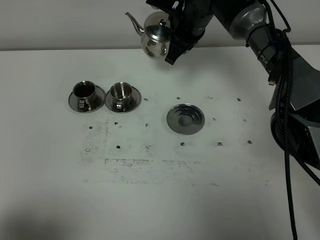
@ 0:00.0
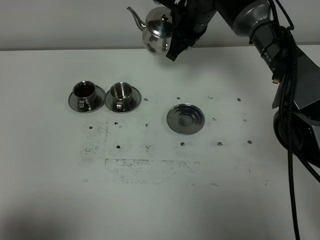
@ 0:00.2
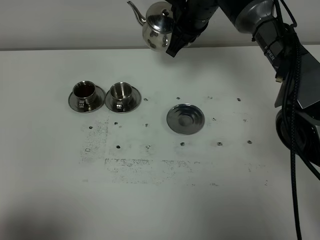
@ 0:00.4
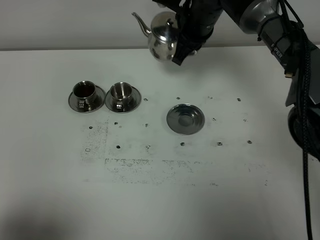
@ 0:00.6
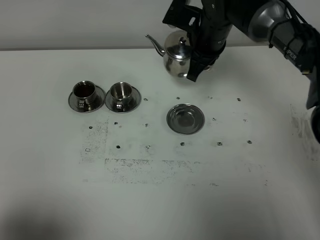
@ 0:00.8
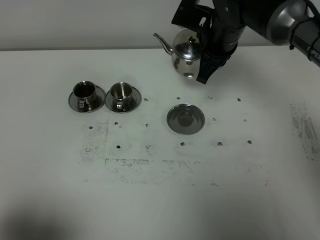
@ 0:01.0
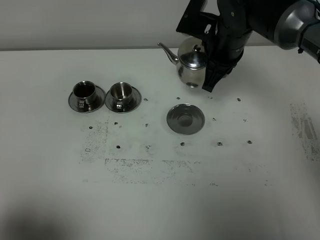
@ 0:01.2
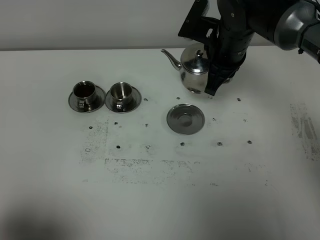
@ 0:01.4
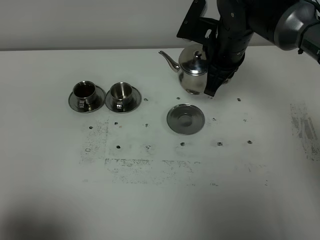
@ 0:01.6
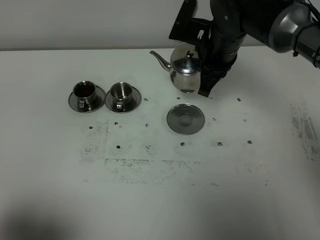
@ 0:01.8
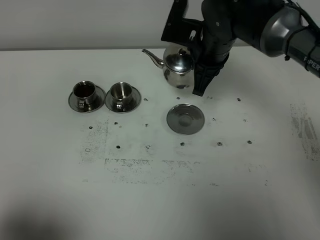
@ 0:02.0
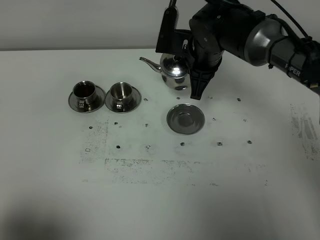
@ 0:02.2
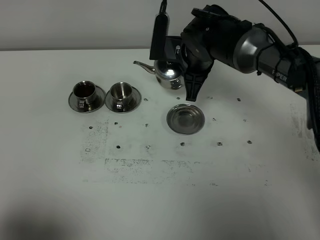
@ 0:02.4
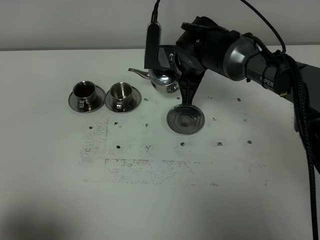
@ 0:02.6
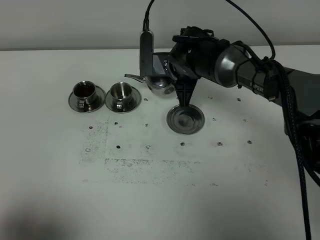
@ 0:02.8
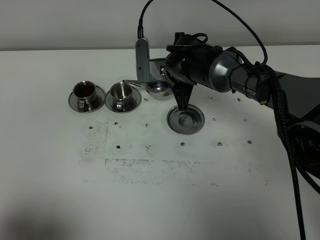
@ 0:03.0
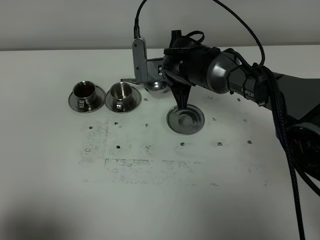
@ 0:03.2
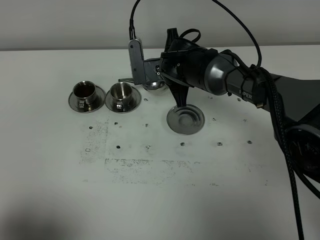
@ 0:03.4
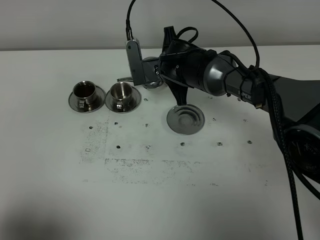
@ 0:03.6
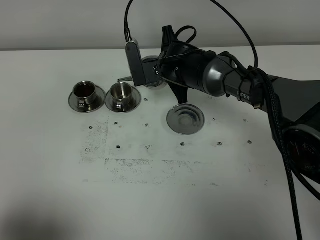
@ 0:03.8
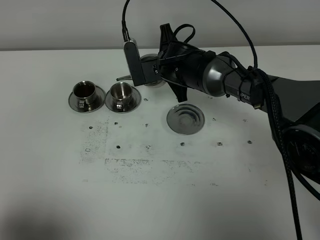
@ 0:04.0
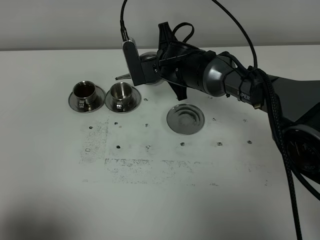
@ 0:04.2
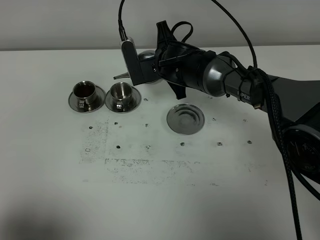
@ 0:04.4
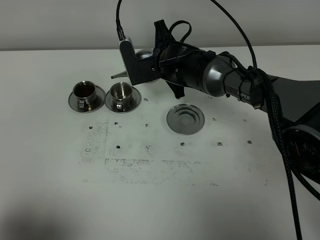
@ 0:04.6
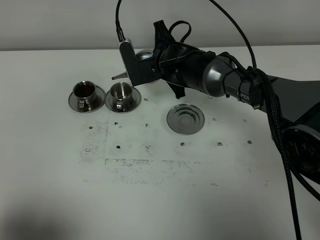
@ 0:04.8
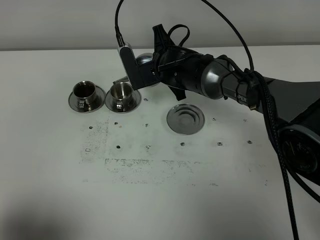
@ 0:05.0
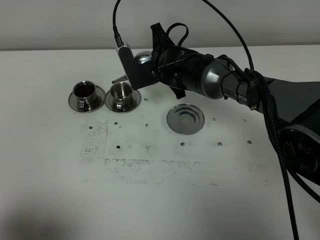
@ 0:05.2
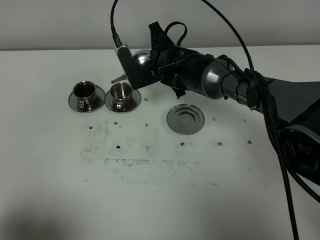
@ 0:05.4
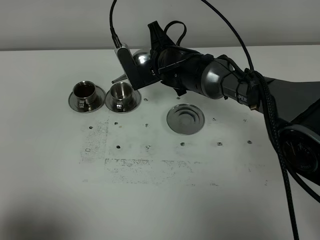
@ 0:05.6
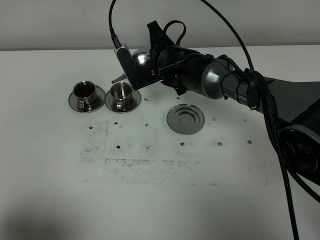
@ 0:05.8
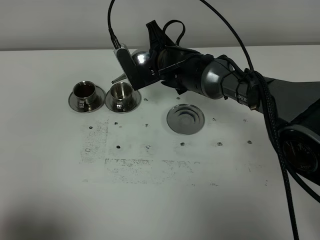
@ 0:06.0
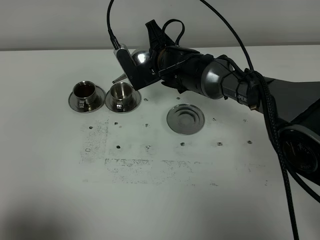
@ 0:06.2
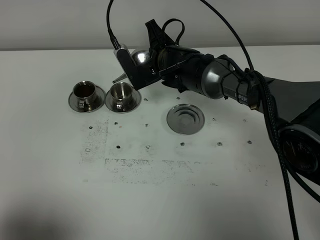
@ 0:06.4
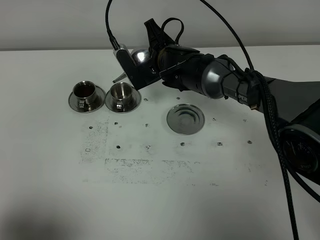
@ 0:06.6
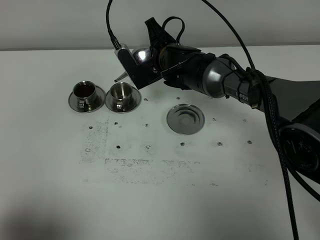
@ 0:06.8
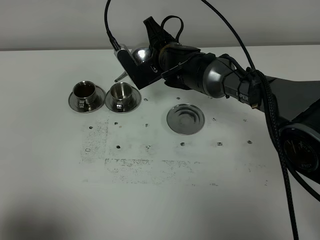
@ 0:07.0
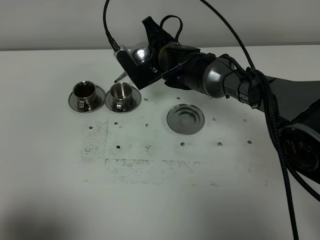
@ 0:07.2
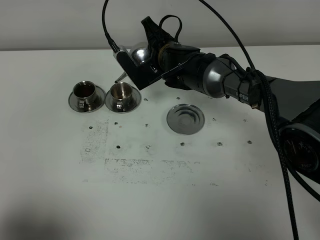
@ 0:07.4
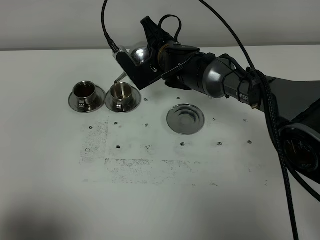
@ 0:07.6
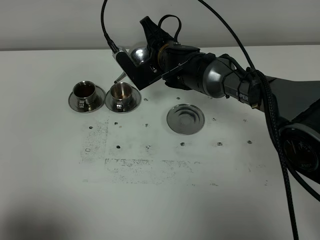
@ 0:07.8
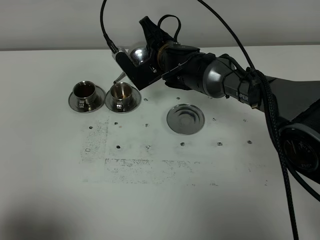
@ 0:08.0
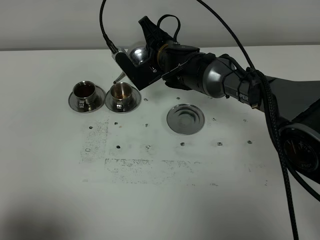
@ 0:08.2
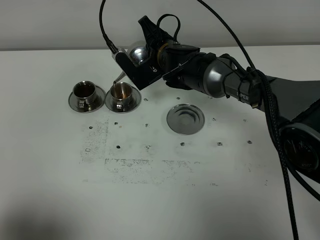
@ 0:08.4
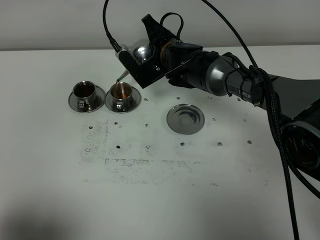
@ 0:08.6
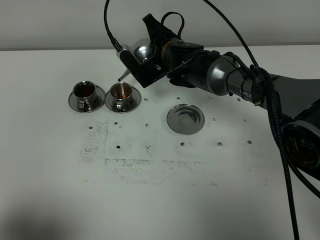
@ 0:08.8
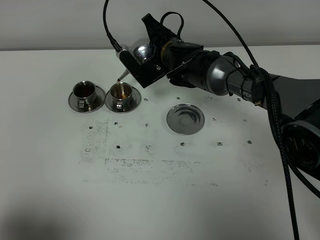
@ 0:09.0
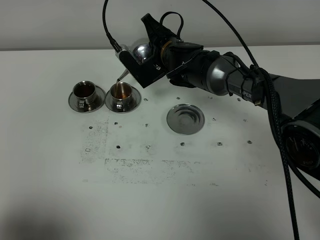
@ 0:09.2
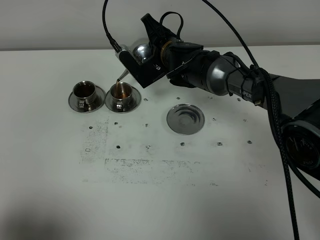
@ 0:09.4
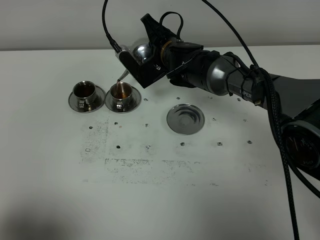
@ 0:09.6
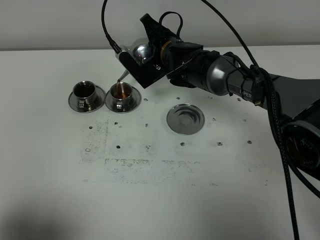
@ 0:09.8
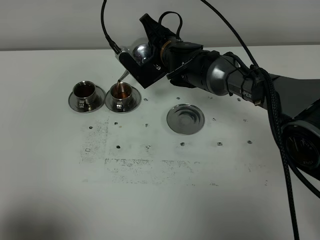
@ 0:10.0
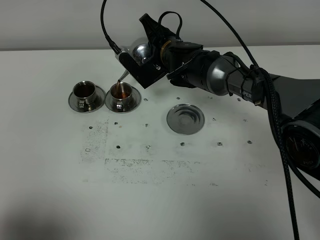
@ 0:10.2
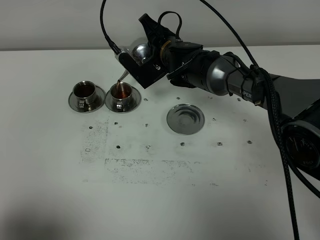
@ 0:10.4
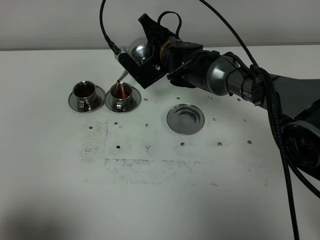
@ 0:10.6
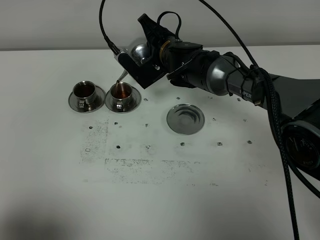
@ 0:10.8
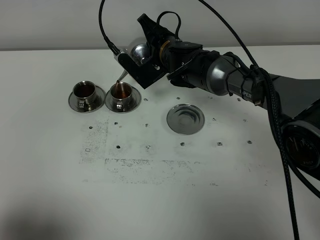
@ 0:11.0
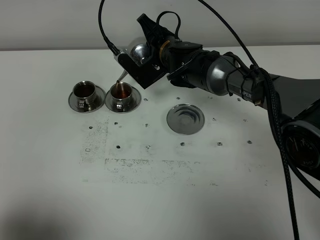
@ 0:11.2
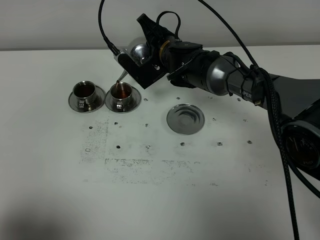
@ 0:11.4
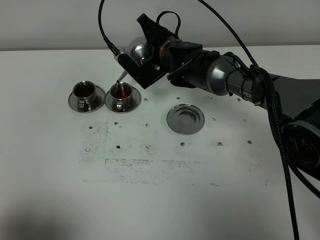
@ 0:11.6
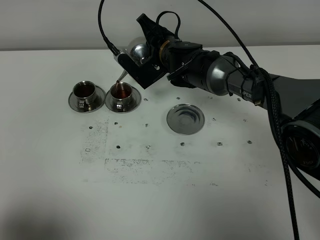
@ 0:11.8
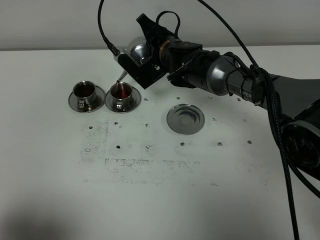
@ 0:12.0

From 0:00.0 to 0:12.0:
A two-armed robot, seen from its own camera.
Task of the whole recording: grasp the stainless steel teapot and pour the tea into the two stainless steel teacups one by one, put the stainless steel teapot back in its original place.
From 0:00.0 to 0:01.6: The right gripper heads backward, covering approximately 10 cm.
From 0:01.6 to 0:03.0: The right gripper heads downward and to the left, covering roughly 10 cm.
From 0:03.0 to 0:04.4: The grippers move only a little.
From 0:04.4 to 0:06.0: The grippers make only small movements.
From 0:06.0 to 0:07.6: The grippers stay close to where they were, moving slightly.
From 0:07.6 to 0:09.0: Both grippers stay about where they are.
From 0:09.0 to 0:10.4: Both grippers stay about where they are.
From 0:10.4 to 0:12.0: Neither gripper changes place.

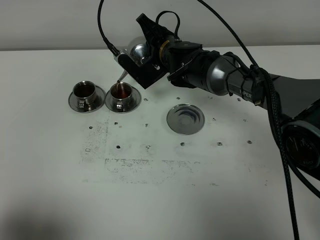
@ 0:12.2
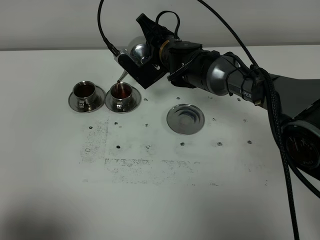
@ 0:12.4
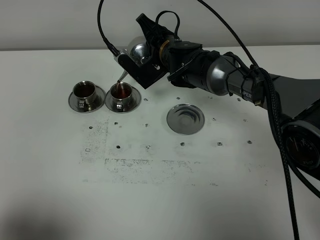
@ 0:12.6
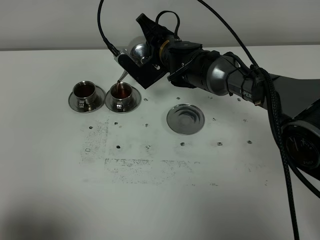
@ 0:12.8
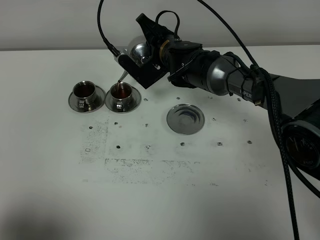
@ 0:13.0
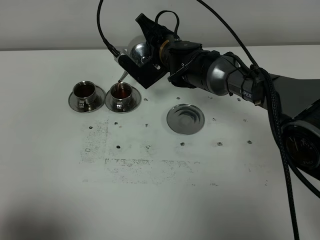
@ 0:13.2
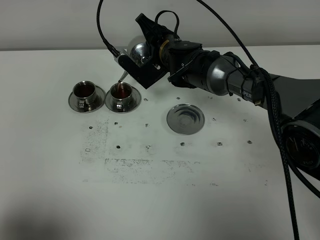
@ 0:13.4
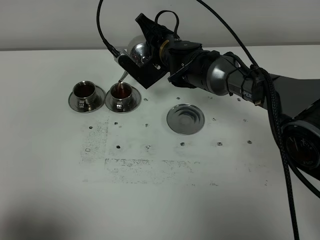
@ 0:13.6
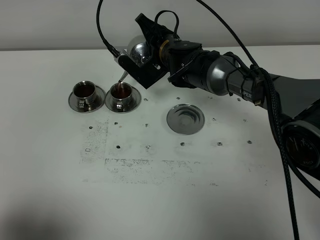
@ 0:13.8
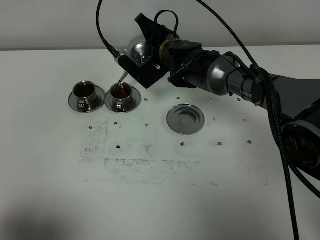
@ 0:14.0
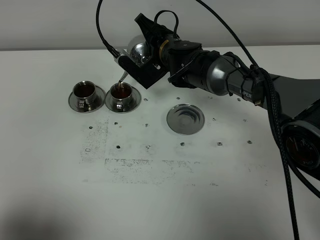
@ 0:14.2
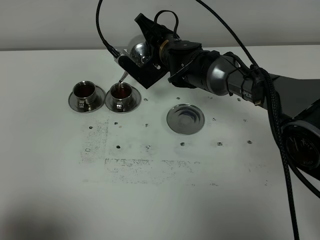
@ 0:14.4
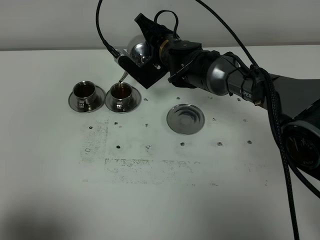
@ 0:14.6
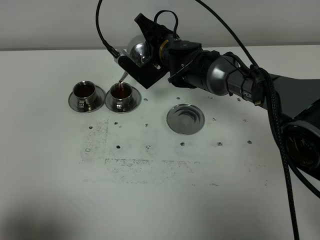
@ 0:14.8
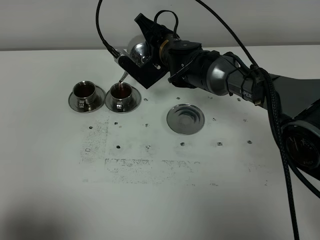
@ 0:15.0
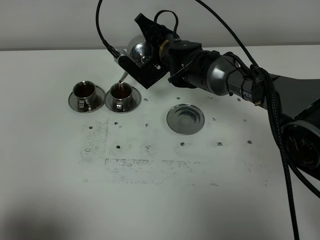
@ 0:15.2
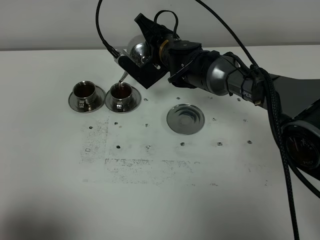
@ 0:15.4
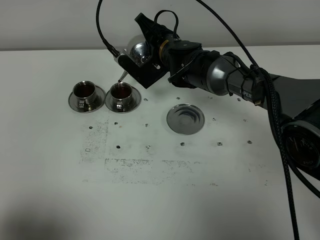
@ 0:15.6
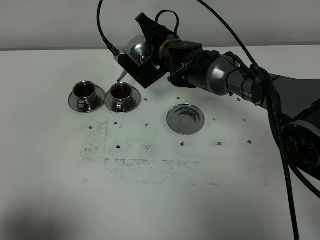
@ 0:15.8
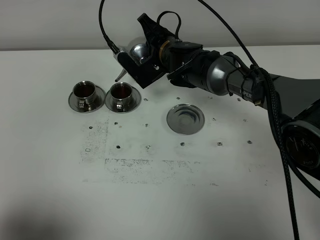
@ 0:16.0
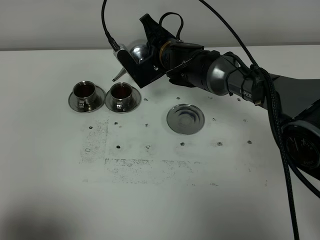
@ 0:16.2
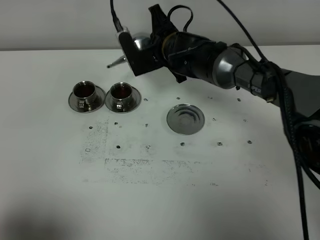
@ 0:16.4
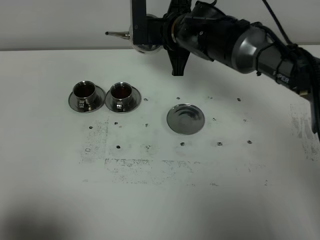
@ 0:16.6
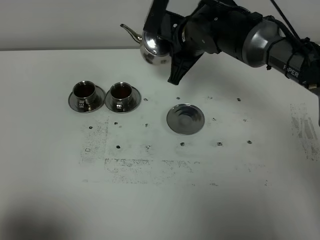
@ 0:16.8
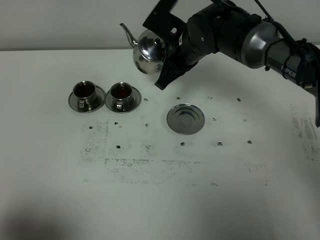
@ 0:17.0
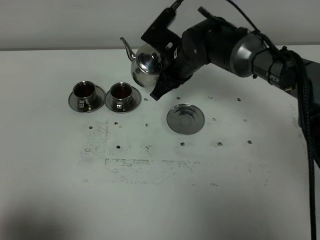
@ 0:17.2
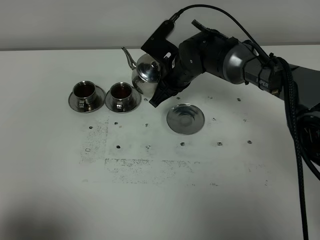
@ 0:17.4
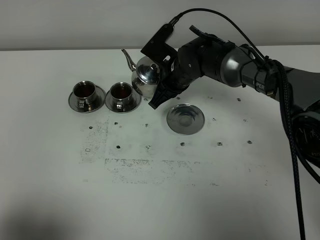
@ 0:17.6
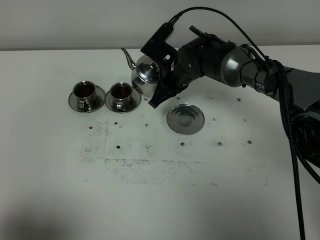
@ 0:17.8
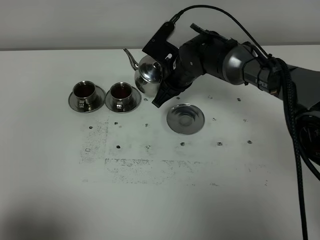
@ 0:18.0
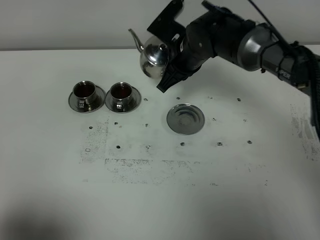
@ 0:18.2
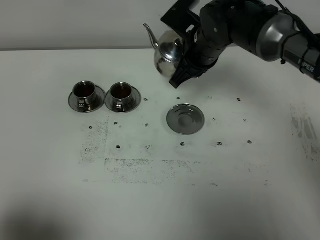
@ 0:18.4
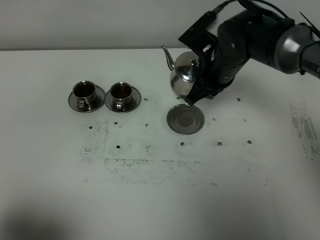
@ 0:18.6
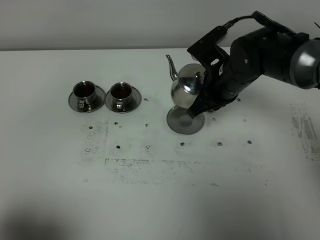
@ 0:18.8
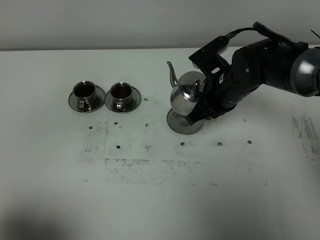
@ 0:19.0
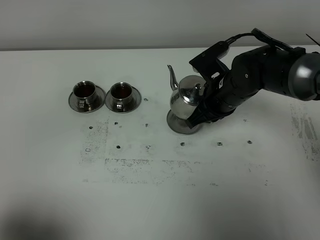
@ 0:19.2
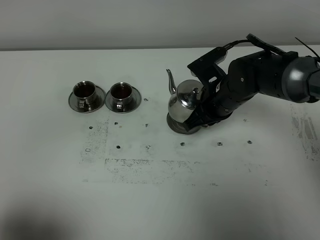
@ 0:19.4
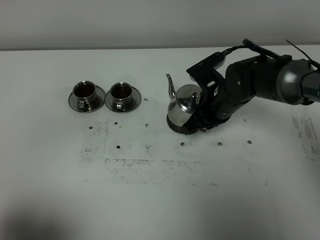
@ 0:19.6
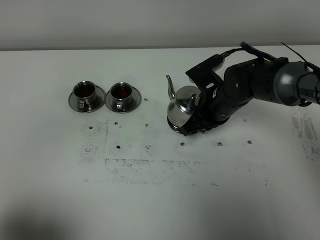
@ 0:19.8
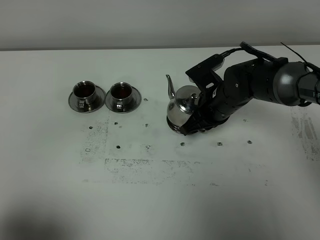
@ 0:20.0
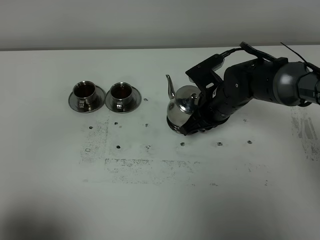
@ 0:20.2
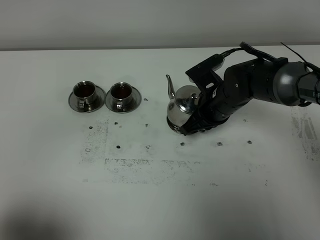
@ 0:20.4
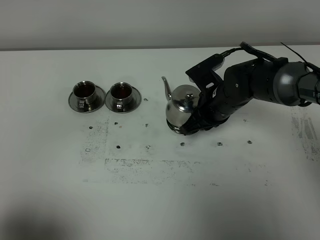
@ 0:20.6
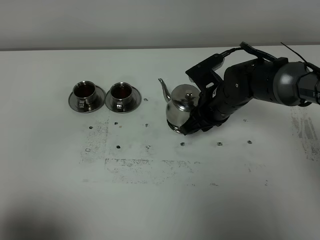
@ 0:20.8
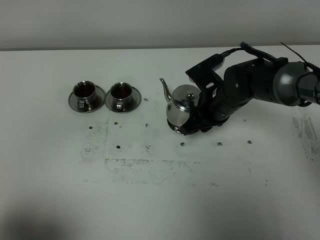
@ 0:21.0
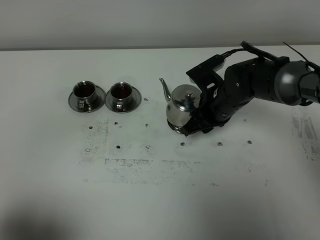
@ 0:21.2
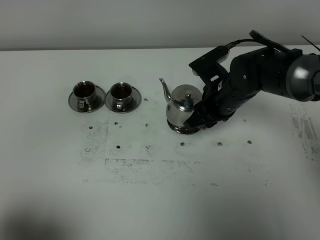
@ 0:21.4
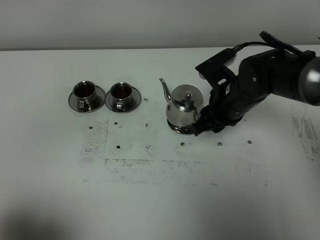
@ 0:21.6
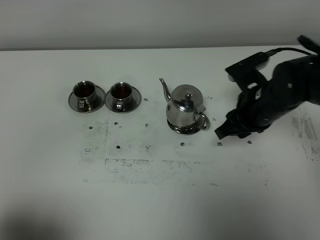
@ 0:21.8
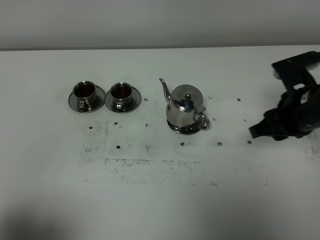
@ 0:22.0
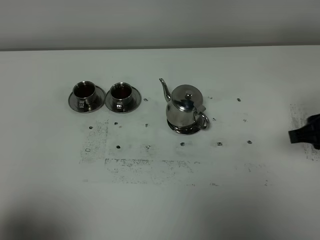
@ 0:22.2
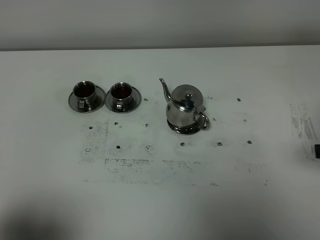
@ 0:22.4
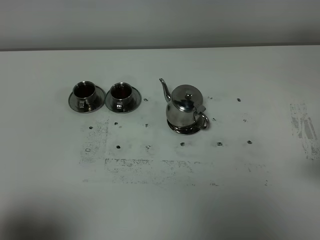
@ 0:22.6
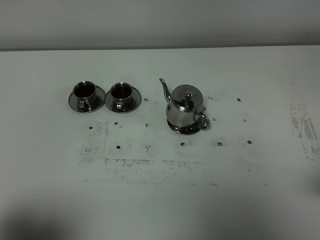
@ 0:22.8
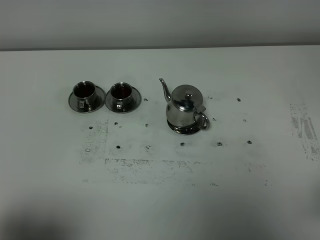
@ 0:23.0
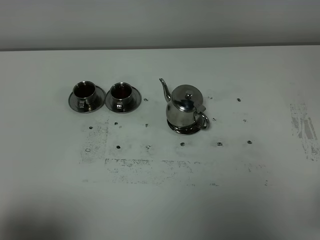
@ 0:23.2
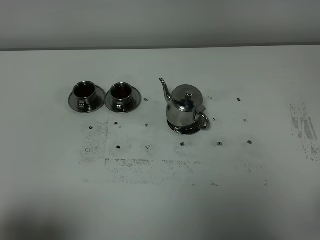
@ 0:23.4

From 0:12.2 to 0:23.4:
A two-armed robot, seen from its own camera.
Task of the whole recording: grasp the stainless steel teapot and pour the tea into the two stainless steel teacups one by one, put the stainless steel teapot back in its original place.
Step, from 0:12.2 to 0:16.0: Pour tea into the teacup with the right gripper.
From 0:12.2 to 0:15.4: Neither gripper changes place.
From 0:15.4 to 0:17.0: The right gripper moves roughly 5 cm.
From 0:17.0 to 0:18.6: The right gripper moves to the right, approximately 5 cm, and travels downward and back again, some 5 cm each way.
From 0:18.6 to 0:20.2: The right gripper is displaced downward by approximately 5 cm.
From 0:20.2 to 0:21.8: The right gripper is displaced to the right and backward by approximately 10 cm, and opens up.
From 0:21.8 to 0:23.4: The right gripper moves backward, approximately 30 cm.
